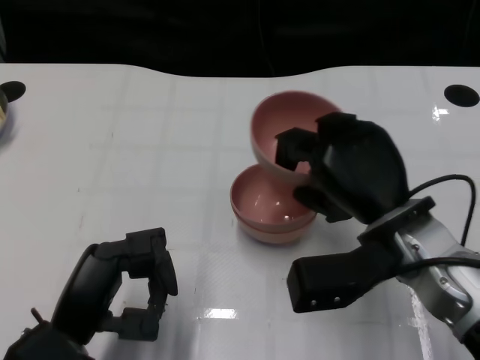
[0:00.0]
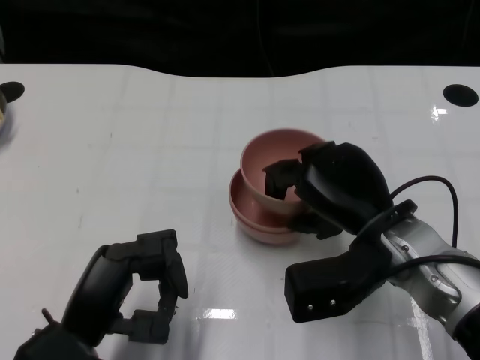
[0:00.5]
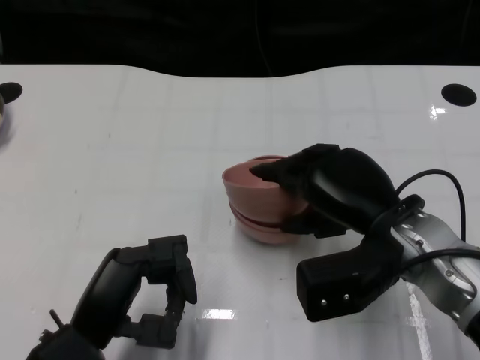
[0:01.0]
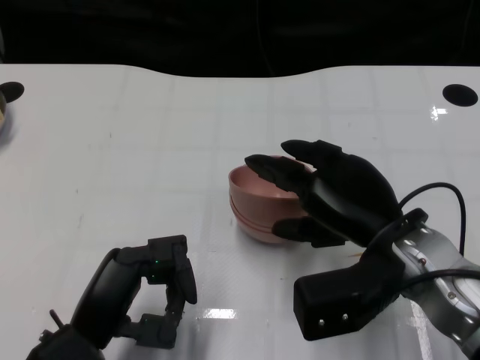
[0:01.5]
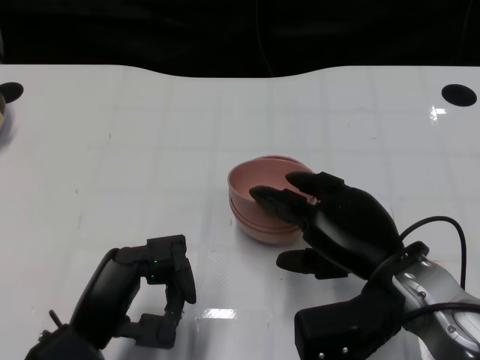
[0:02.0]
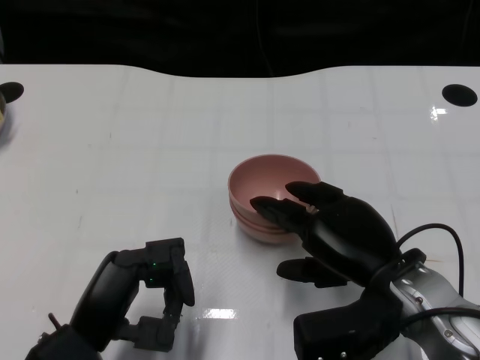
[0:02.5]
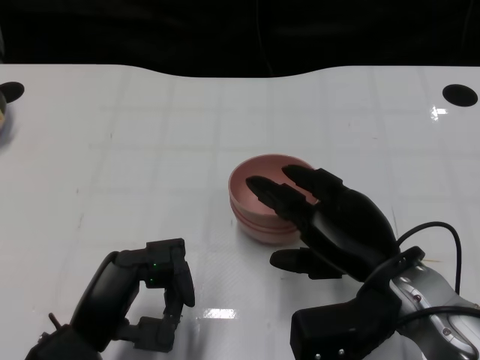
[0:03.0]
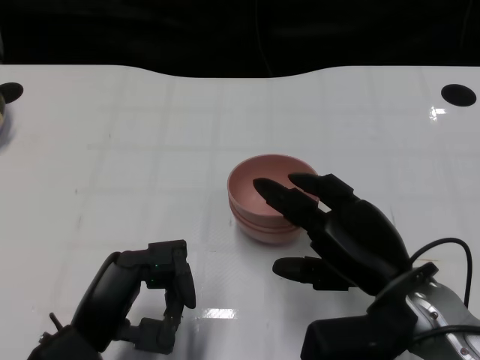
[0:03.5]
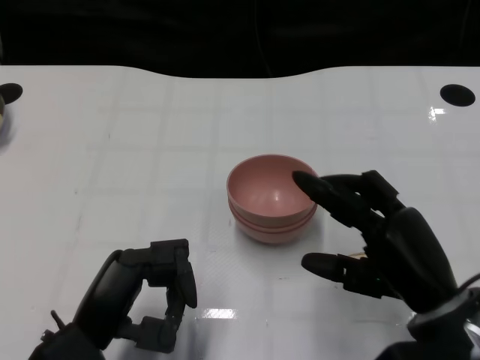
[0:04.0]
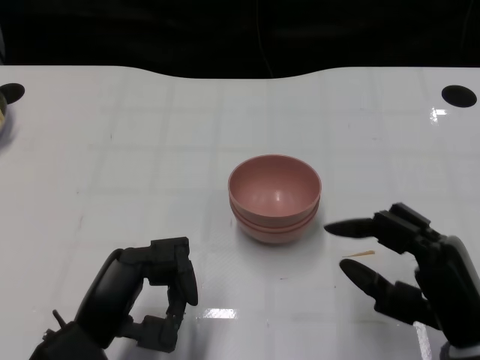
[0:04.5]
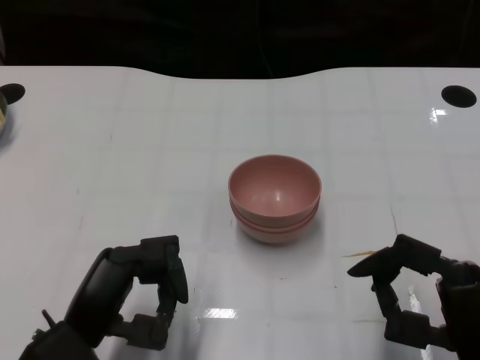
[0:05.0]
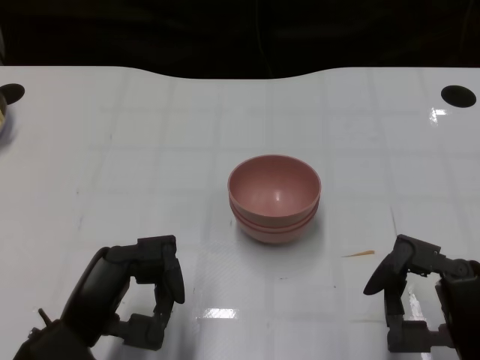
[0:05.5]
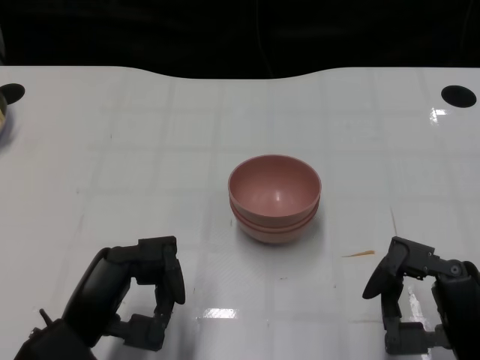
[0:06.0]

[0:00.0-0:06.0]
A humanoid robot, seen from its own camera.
Task of the whole recording: Pick up the bowl on one side of the table and place it on top of the middle bowl, then pick up the bowl on the other side of the table and place it on top of the middle bowls.
Step, 0:00.0 to 0:03.5: Place the bowl on the right onto the bowl in the middle with right gripper.
0:02.0 to 0:04.0: The right hand shifts by some 5 cm.
0:04.0 to 0:06.0: The right hand changes place by approximately 5 cm.
